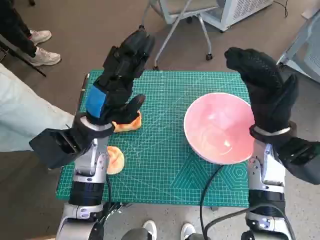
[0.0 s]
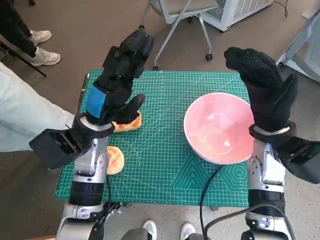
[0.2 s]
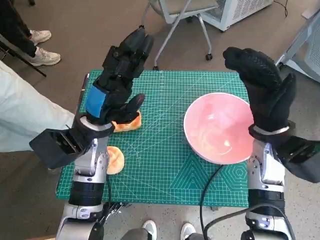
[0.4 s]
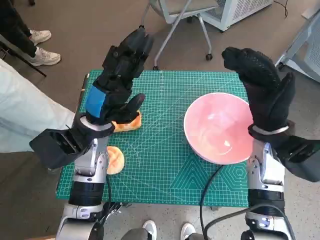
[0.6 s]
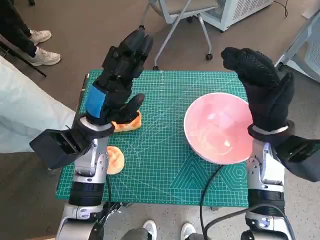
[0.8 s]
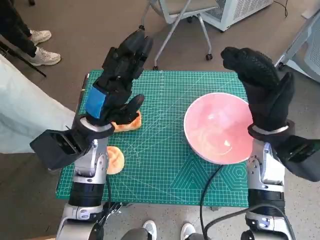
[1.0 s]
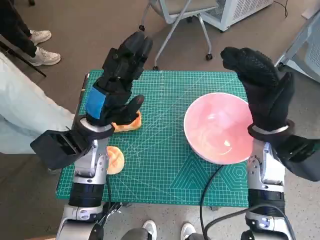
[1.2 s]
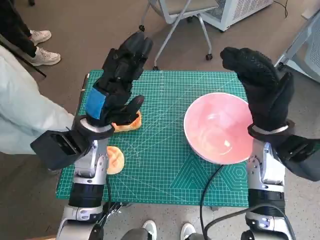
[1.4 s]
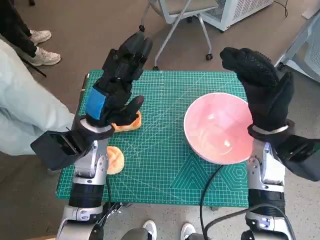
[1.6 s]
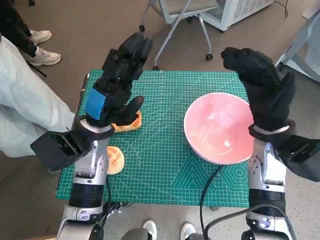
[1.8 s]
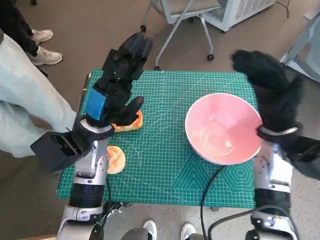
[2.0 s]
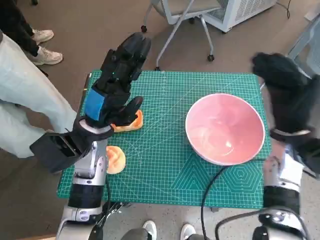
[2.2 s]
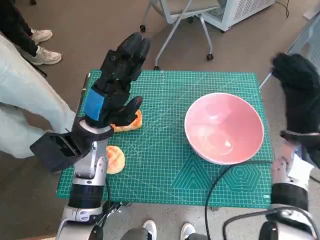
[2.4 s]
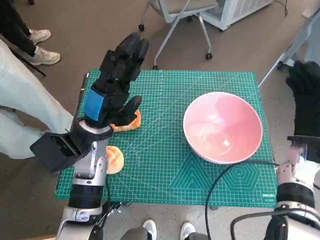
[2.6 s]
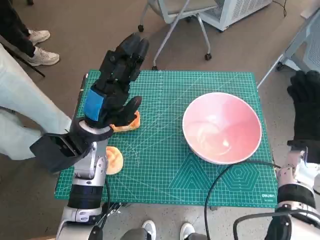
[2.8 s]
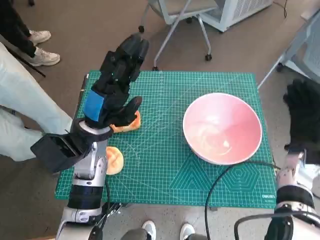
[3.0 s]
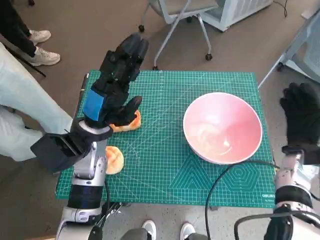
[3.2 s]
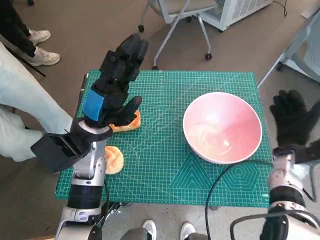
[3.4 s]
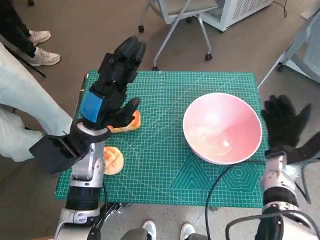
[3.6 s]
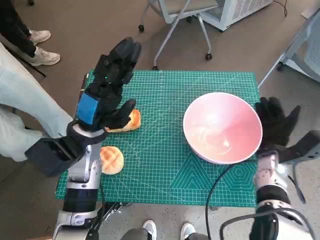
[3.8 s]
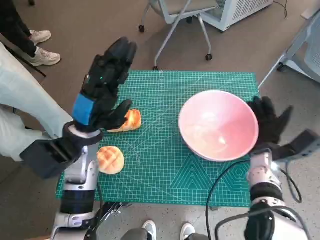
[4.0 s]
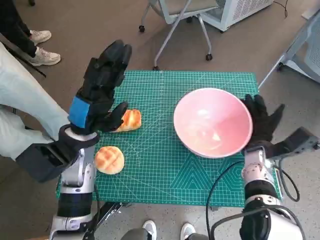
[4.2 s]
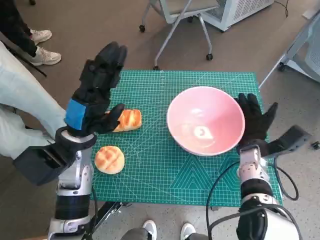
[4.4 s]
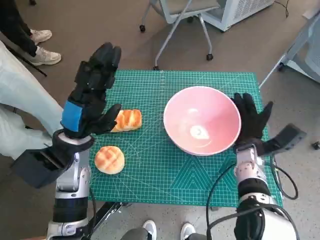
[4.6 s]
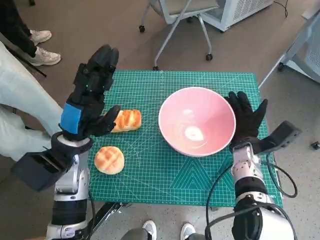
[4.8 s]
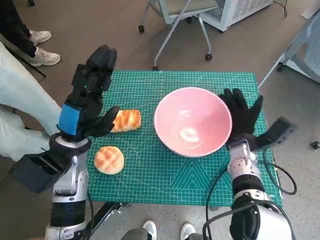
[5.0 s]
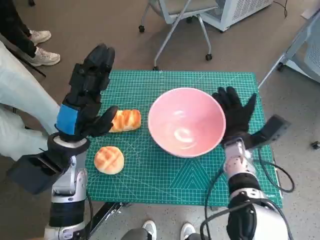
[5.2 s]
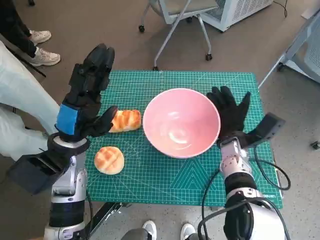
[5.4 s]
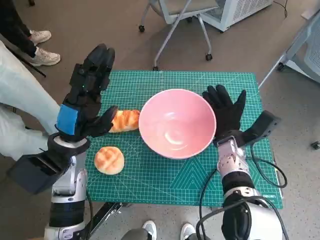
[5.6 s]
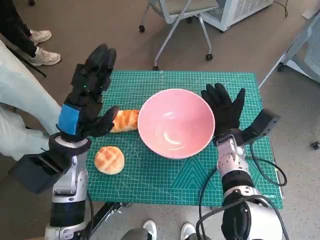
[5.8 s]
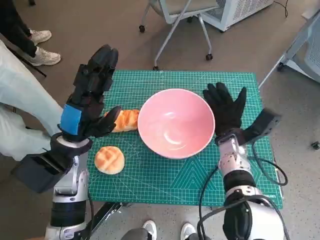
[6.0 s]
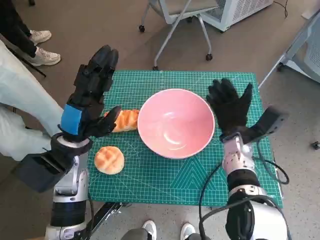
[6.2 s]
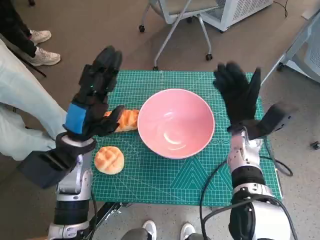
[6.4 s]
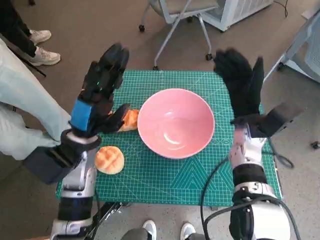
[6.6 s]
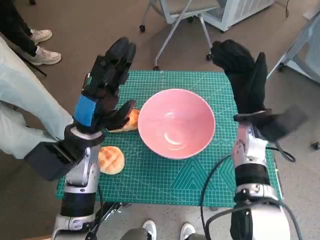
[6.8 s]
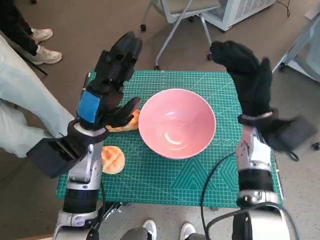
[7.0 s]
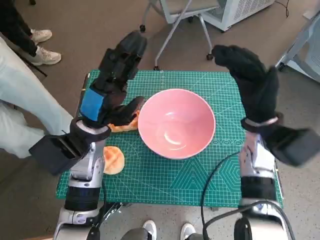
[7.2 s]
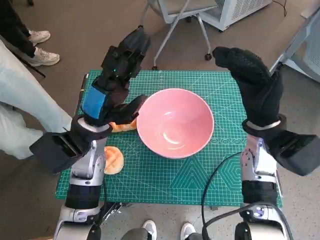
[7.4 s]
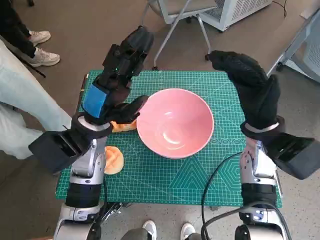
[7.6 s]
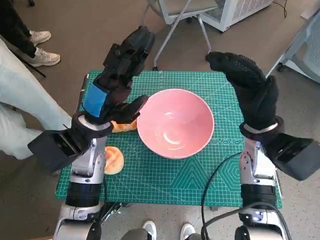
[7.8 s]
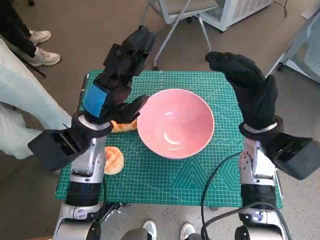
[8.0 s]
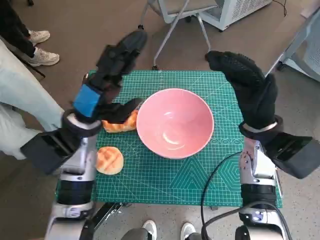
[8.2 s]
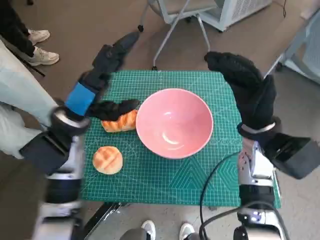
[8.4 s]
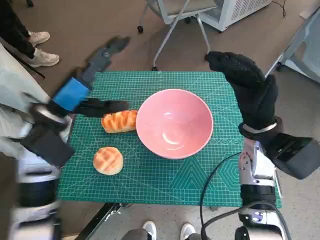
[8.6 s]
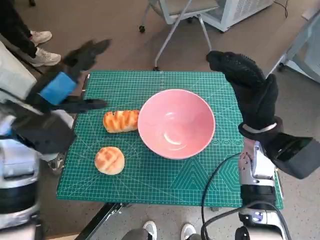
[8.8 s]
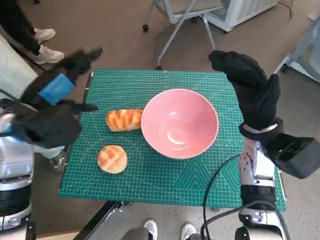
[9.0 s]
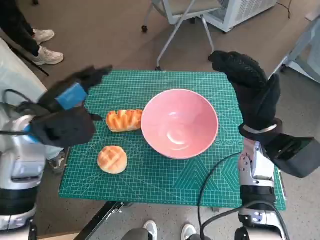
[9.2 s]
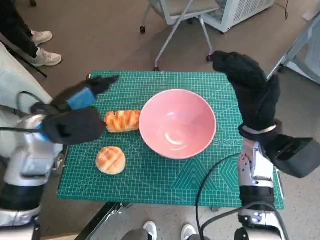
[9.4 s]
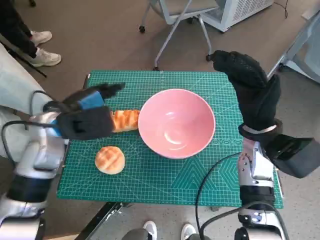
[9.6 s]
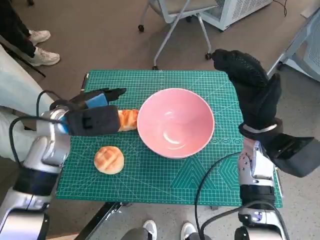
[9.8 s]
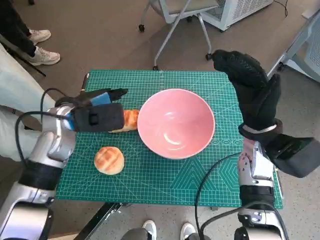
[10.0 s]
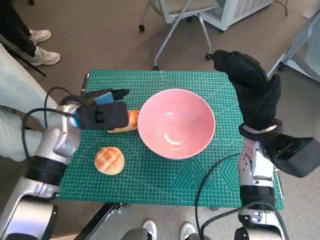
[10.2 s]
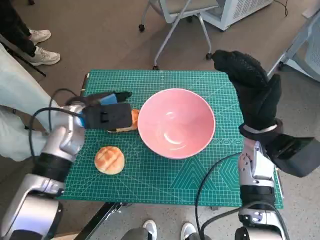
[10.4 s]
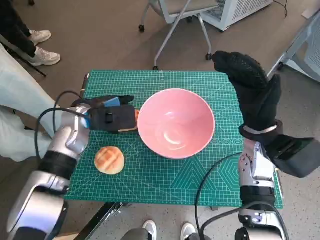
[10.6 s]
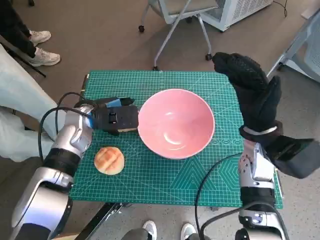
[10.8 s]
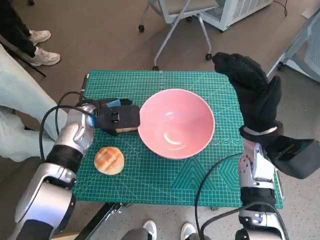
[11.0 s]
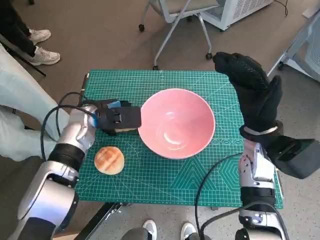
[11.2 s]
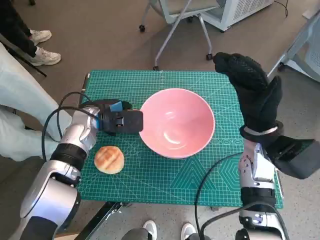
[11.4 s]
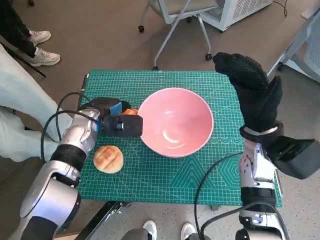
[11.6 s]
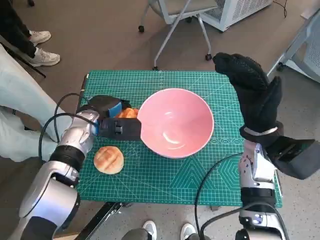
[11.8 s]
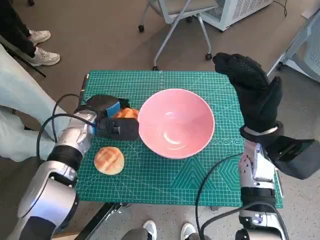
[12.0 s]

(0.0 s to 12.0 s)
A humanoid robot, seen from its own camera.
Task of the whole recording: Push the bowl into the center of the table and put the bread into the bowl.
Step, 0.0 s - 6.6 s: Move the pink bowl to the center of table with right hand.
Step, 6.8 s - 11.8 s: Grasp the long bread with left hand.
1.6 s - 3.0 s: The right hand is displaced to the right and downward by some 15 cm.
3.0 s - 4.4 s: The right hand heads to the left, covering roughly 10 cm.
4.4 s - 6.0 s: The right hand shifts about 5 cm to the left.
6.0 s - 7.6 s: The left hand moves about 5 cm. Meanwhile the right hand moves upward, some 10 cm.
7.6 s - 9.0 s: The left hand goes some 10 cm to the left and upward.
9.0 s - 10.4 s: The left hand is displaced downward and forward by about 10 cm.
10.4 s - 12.0 s: The left hand travels downward by some 5 cm.

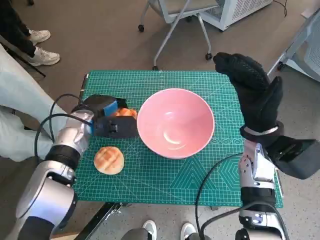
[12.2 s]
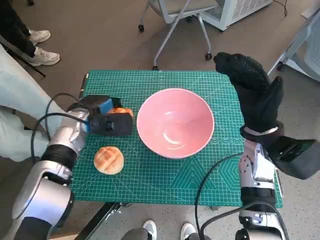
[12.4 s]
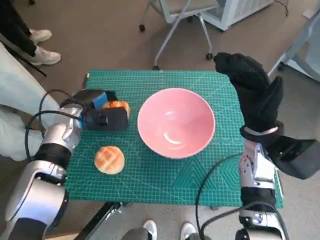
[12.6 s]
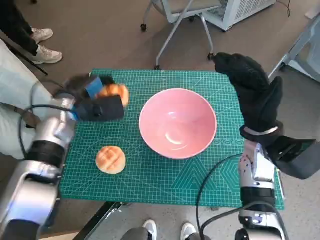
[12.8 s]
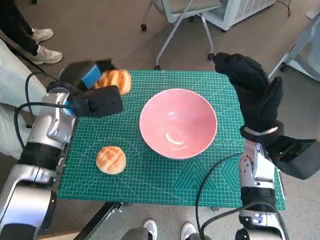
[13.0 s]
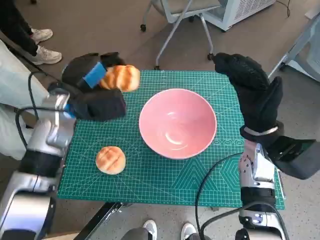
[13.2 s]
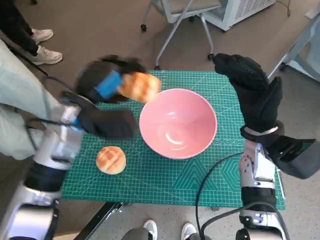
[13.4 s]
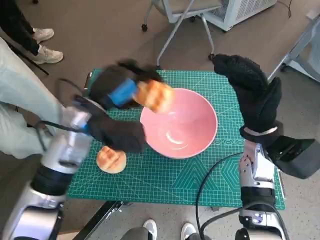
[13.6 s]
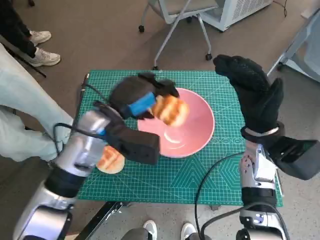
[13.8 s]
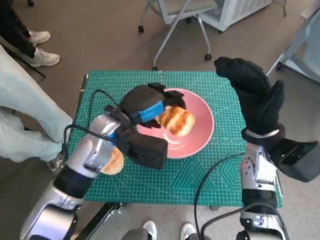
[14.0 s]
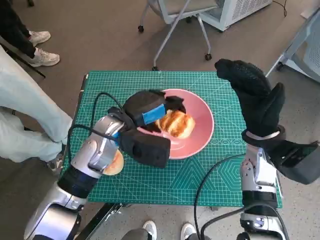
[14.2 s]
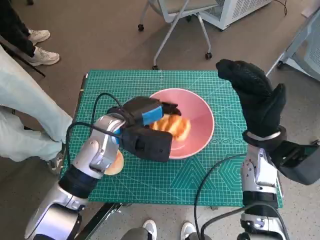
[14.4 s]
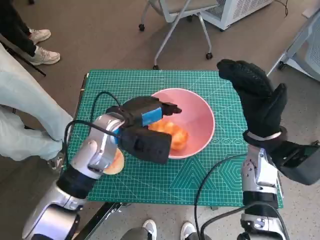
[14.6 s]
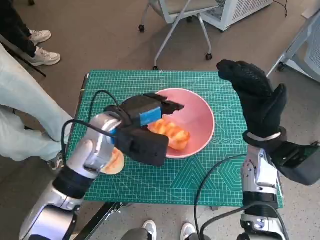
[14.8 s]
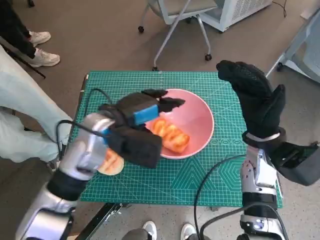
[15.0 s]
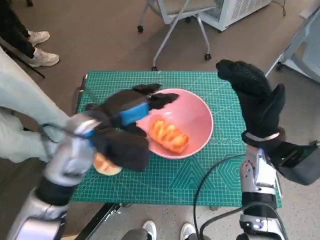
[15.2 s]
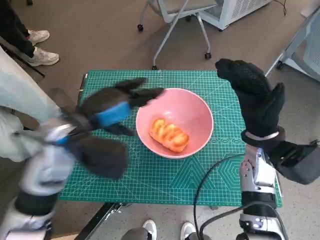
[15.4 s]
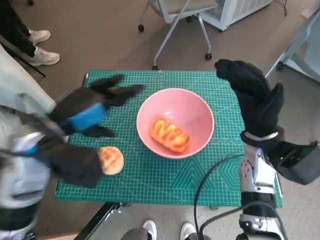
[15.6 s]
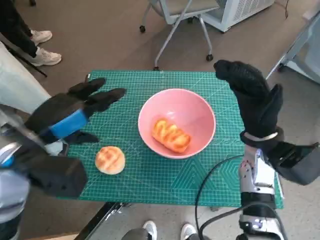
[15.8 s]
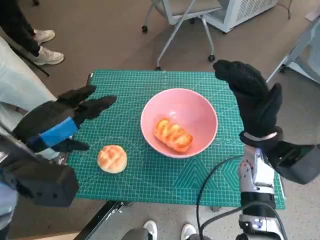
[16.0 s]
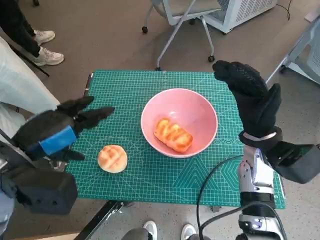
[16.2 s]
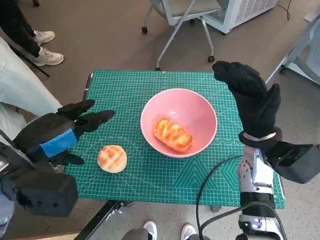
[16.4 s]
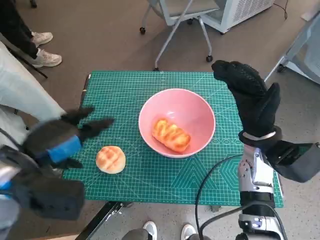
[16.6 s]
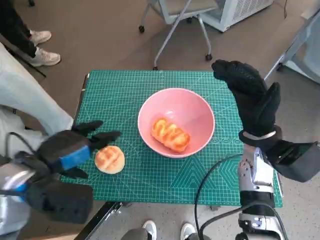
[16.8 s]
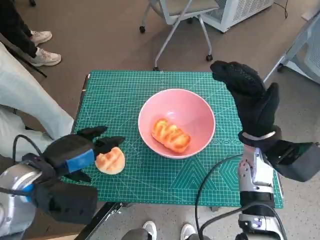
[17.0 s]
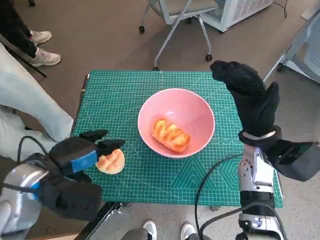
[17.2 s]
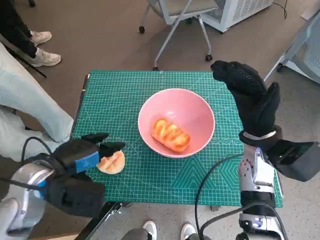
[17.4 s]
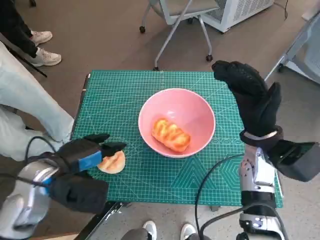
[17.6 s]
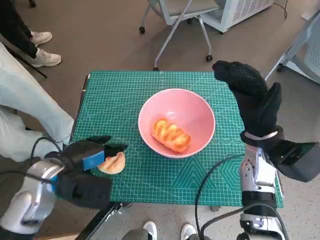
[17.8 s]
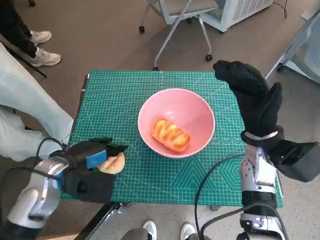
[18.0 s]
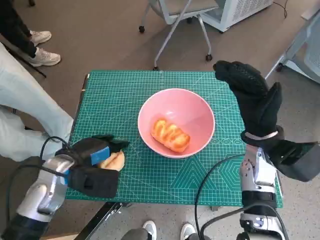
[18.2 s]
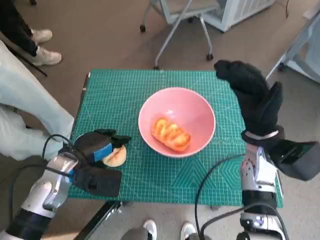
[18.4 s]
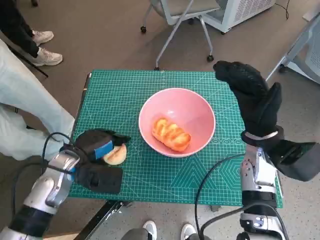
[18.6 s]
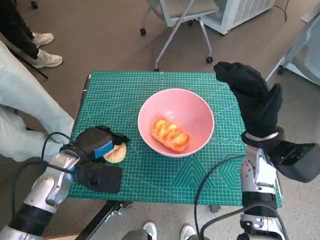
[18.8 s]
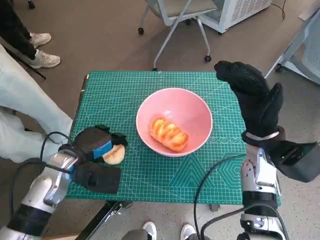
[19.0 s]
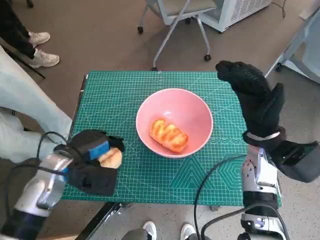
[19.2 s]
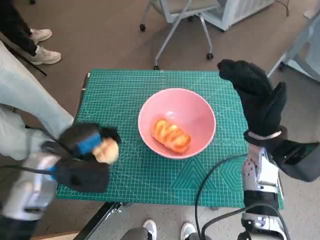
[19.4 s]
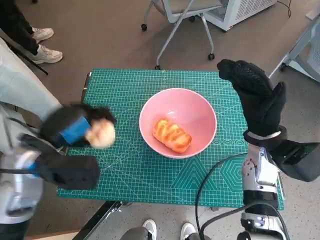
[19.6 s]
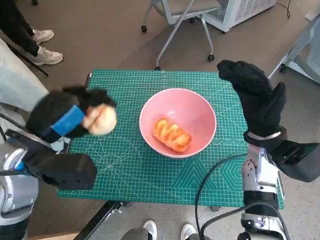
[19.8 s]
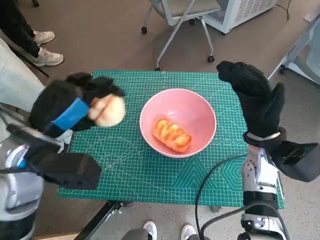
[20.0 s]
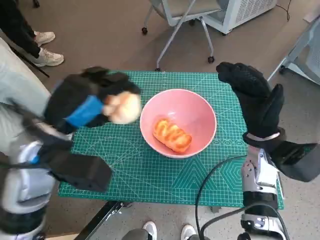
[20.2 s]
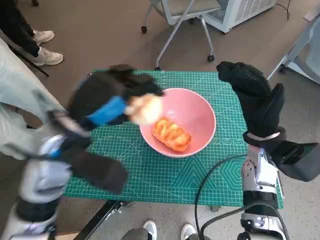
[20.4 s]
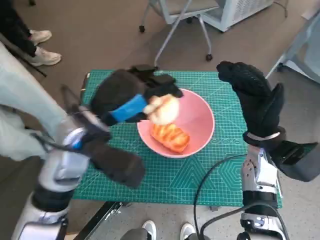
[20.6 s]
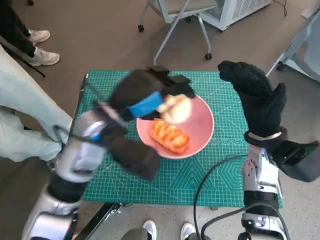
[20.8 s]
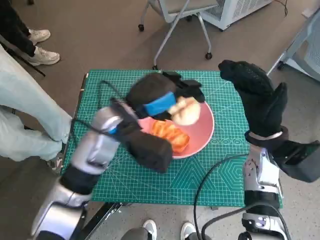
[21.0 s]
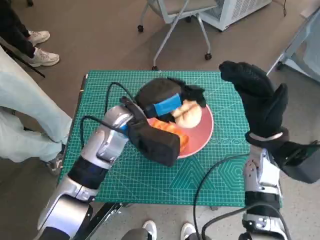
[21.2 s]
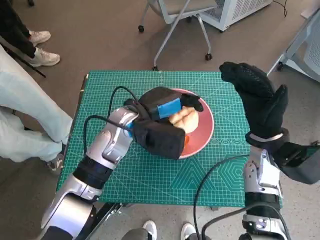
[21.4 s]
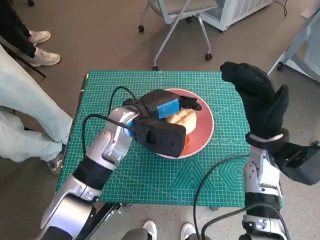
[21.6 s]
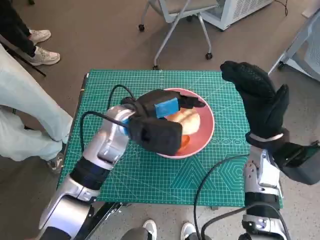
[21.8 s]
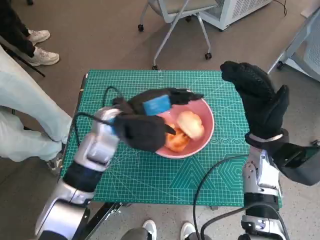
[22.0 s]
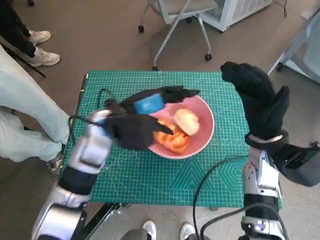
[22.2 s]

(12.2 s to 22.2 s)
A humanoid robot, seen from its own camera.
Task of the whole recording: Push the bowl into the center of the table and put the bread into the bowl.
Step, 12.2 s - 15.0 s: Place the long bread in pink bowl with left hand.
Step, 15.2 s - 18.6 s: Grasp the round bread with left hand.
Step, 18.8 s - 22.2 s: Place the round bread in pink bowl with left hand.
12.2 s - 13.6 s: The left hand heads upward, covering approximately 10 cm.
15.0 s - 16.4 s: The left hand goes some 15 cm to the left and backward.
16.4 s - 18.0 s: The left hand moves downward, some 10 cm.
18.0 s - 19.4 s: The hands move only a little.
19.4 s - 20.8 s: The left hand is displaced to the right and upward by about 15 cm.
